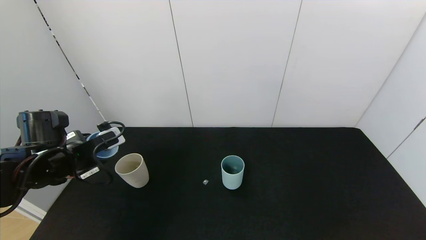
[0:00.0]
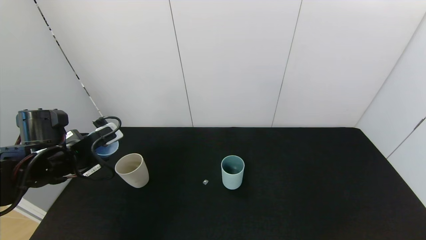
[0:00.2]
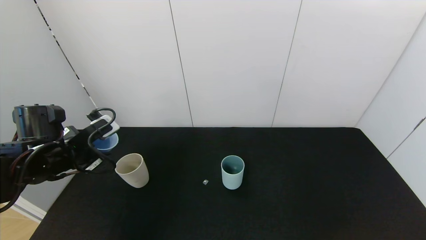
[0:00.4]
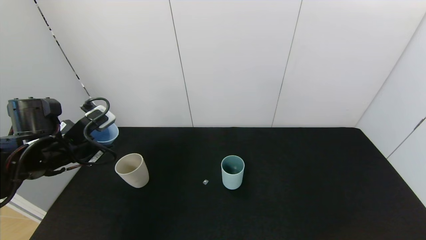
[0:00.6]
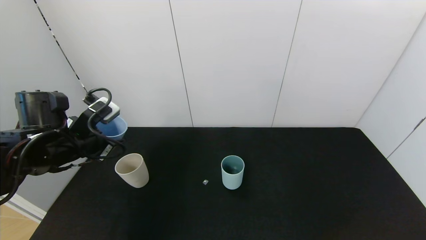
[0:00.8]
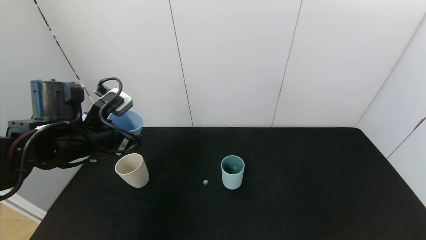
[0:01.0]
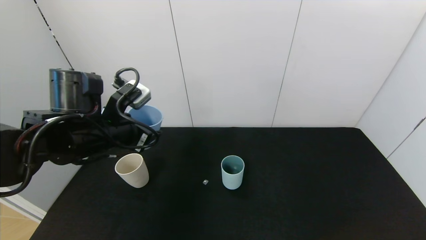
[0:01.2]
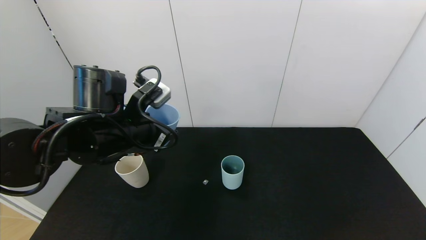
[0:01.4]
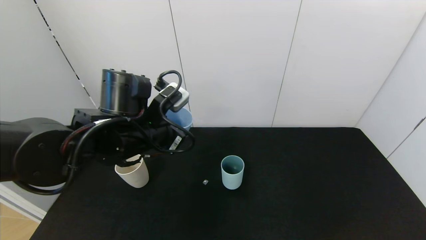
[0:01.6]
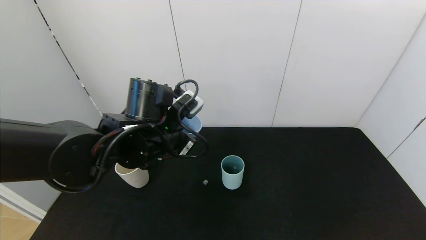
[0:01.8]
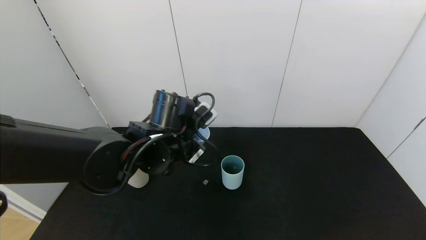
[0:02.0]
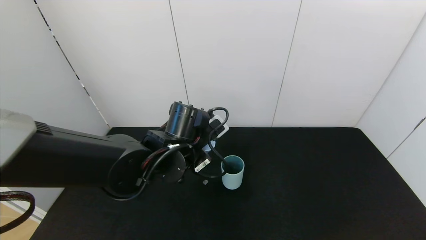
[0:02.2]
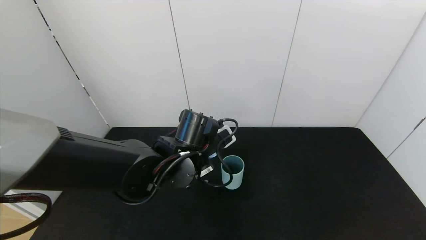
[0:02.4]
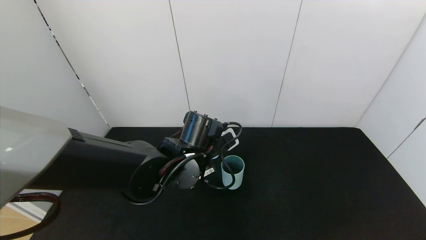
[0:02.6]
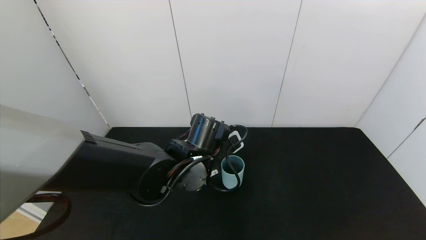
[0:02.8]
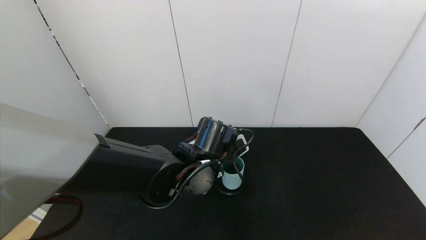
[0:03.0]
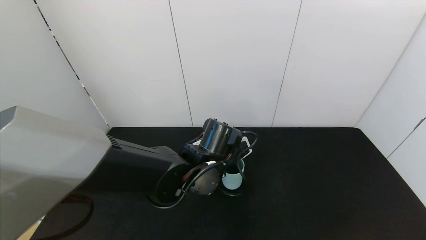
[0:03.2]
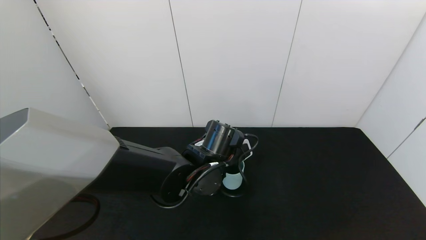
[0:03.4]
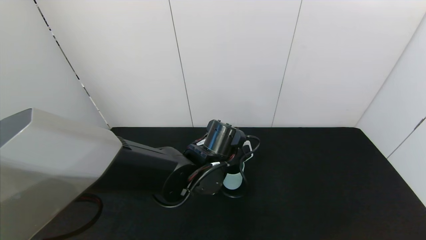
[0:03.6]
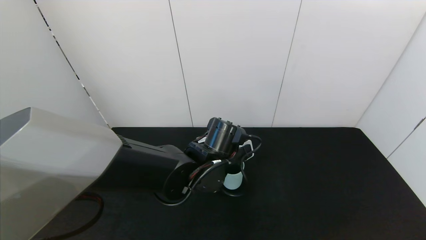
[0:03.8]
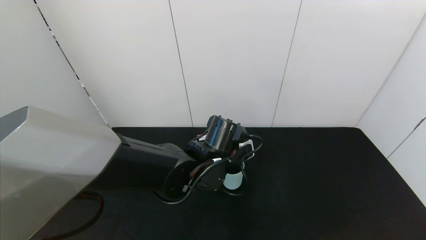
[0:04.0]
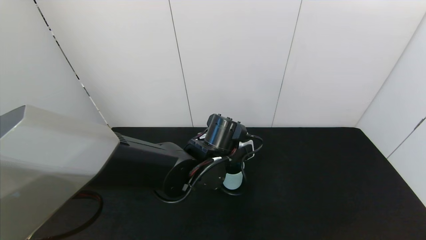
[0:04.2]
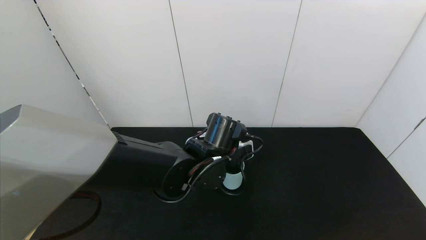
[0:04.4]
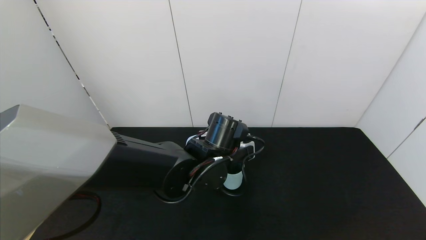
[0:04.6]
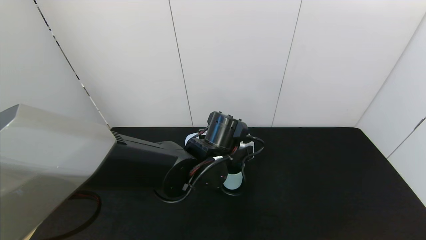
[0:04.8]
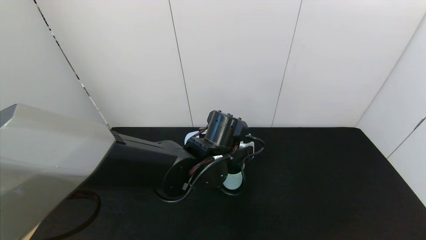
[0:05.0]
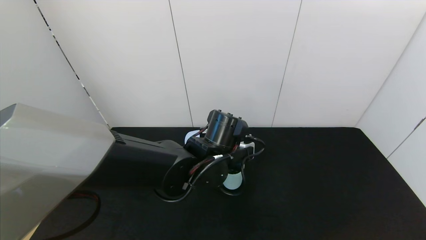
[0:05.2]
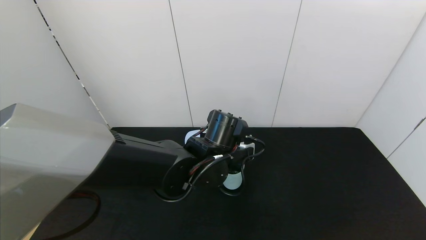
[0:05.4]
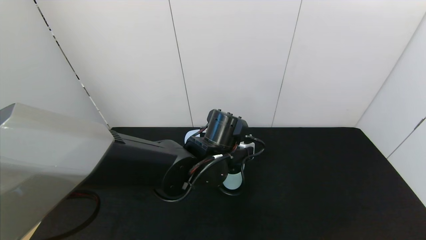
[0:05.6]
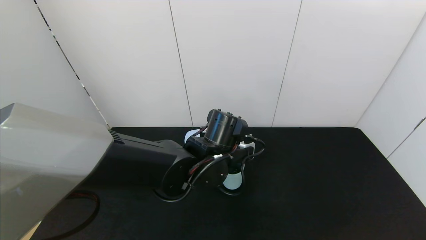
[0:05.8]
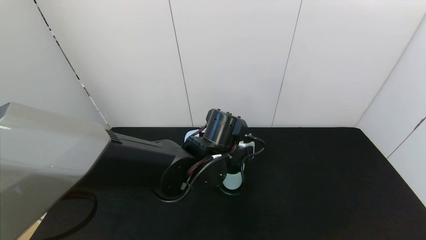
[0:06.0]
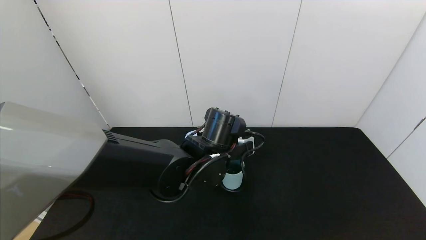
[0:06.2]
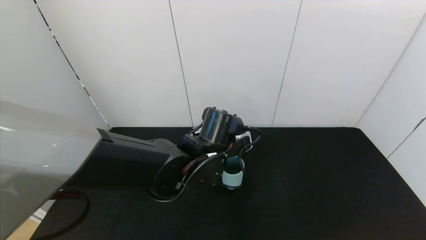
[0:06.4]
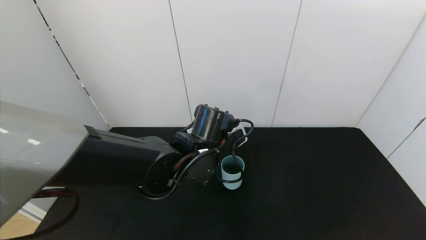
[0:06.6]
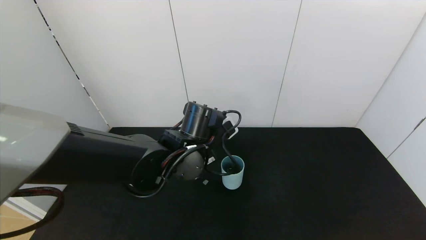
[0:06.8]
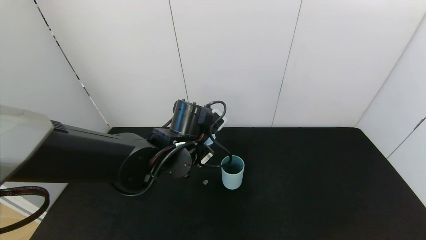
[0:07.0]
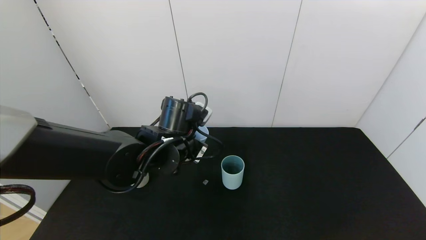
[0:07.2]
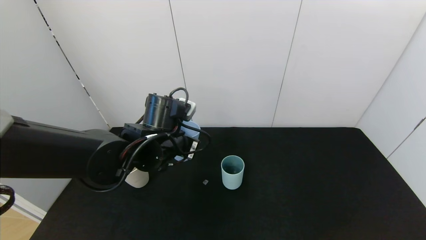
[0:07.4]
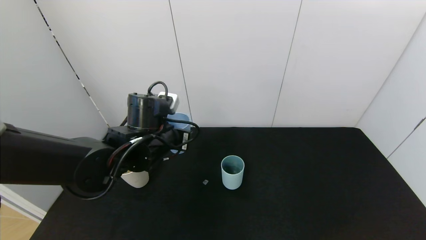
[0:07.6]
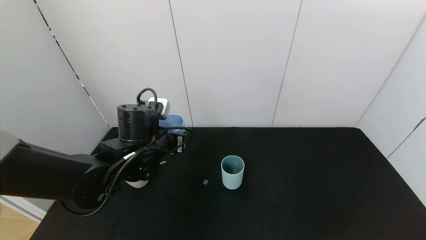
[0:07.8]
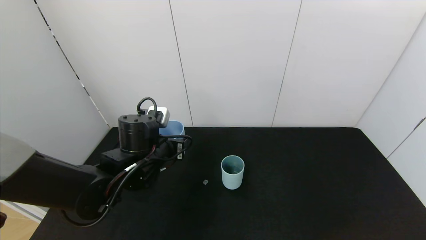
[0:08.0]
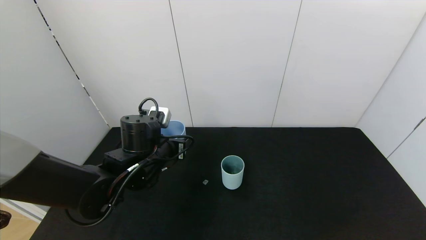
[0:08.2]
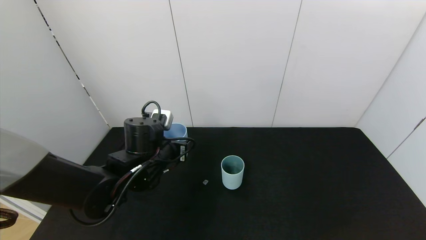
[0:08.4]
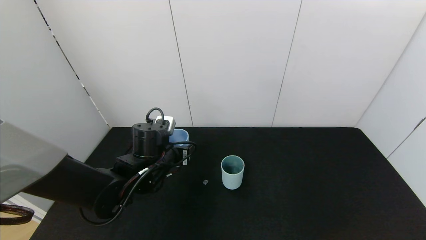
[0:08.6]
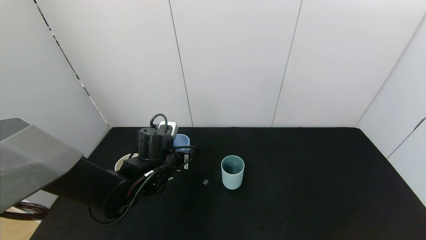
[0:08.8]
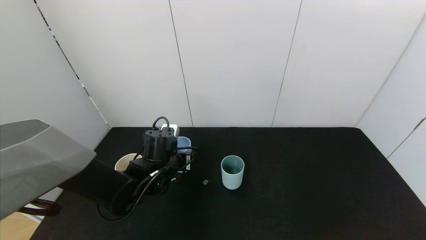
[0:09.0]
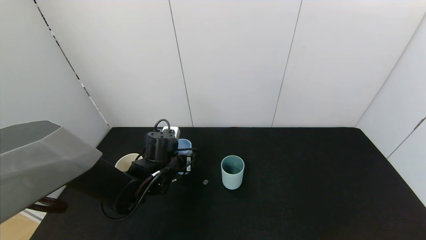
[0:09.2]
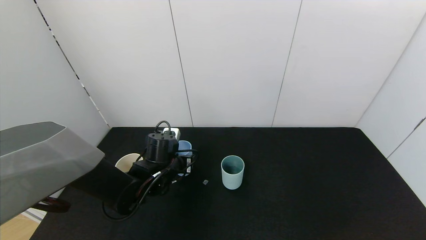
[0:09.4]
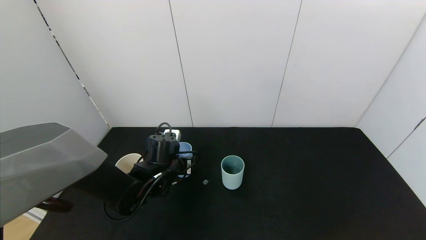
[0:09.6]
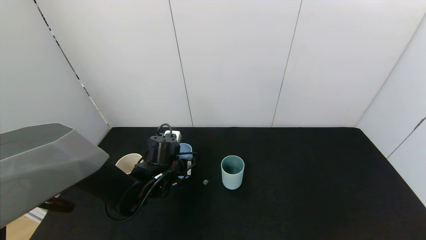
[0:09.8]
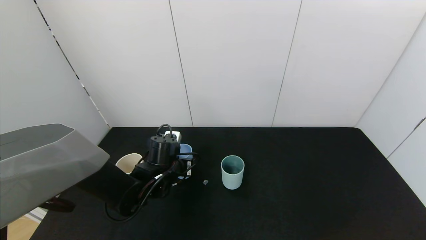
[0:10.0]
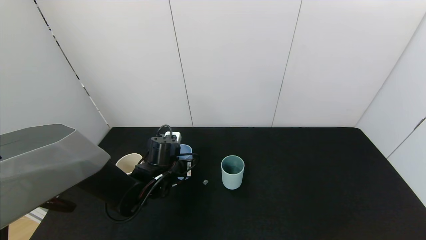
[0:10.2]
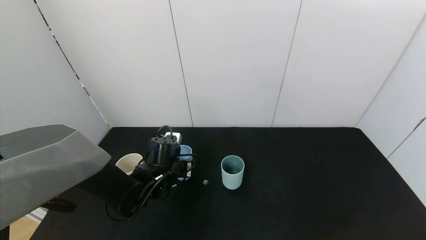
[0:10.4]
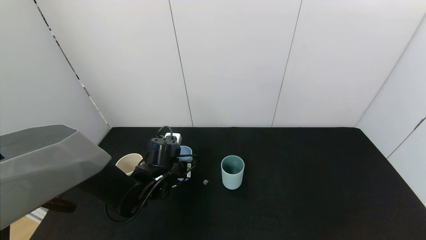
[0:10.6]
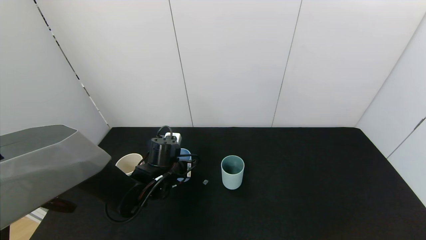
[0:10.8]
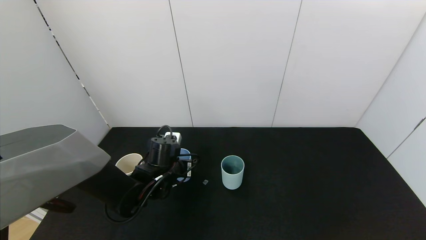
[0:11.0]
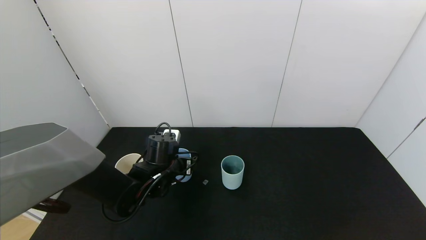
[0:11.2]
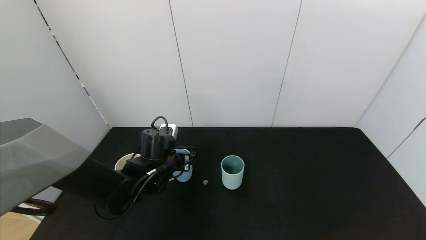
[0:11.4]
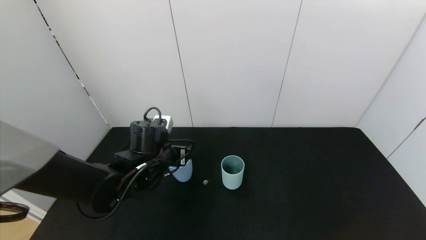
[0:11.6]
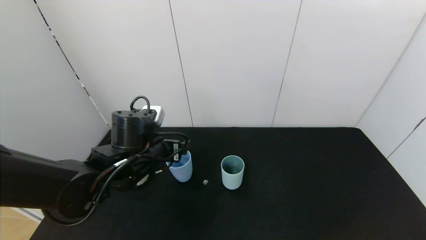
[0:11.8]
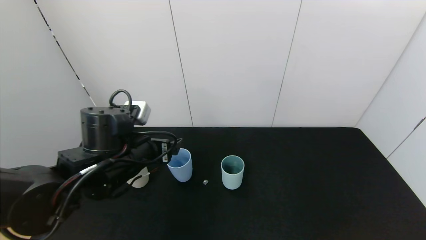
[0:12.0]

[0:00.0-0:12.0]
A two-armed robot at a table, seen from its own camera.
Task of the whole recording: use the gripper to pour the water into the other two cups on black table.
Step, 0:00.4 to 0:06.8: Pour water from blue cup to green cup with the left gripper.
0:00.0 to 0:01.6: The left gripper moves to the right, about 15 cm.
0:01.6 to 0:03.0: The left gripper travels to the right and downward by about 15 cm.
0:03.0 to 0:04.4: The grippers stay close to where they were, moving slightly.
0:04.4 to 0:06.0: The grippers move only a little.
0:06.0 to 0:07.6: The left gripper heads to the left, covering some 10 cm.
0:07.6 to 0:09.0: The left gripper goes about 10 cm downward.
0:09.0 to 0:10.4: The grippers make only small movements.
0:10.4 to 0:12.0: The left gripper heads upward and backward, covering some 15 cm, and opens up.

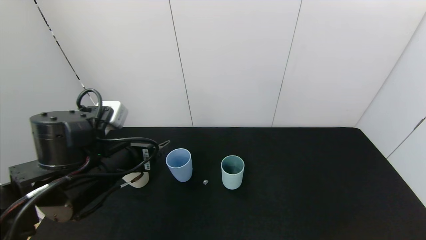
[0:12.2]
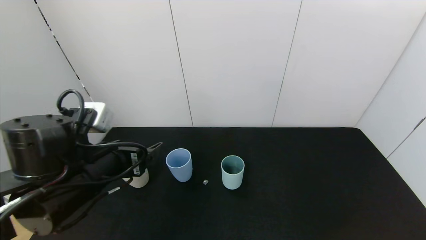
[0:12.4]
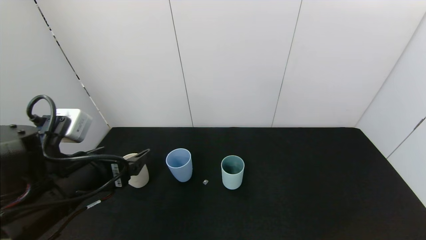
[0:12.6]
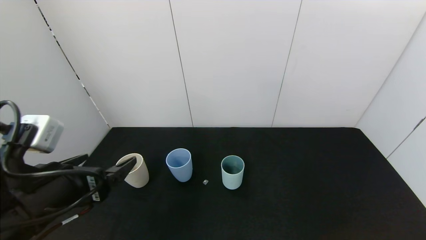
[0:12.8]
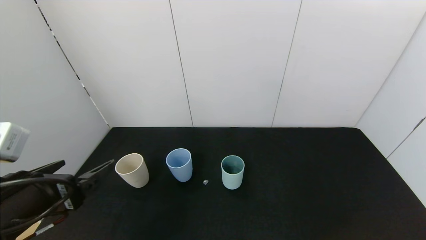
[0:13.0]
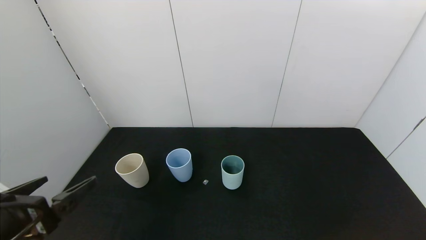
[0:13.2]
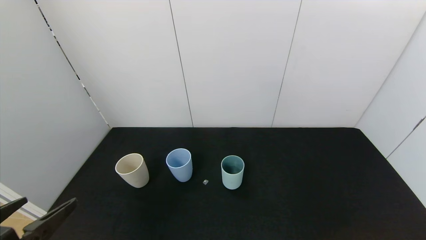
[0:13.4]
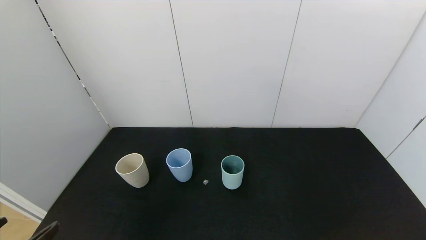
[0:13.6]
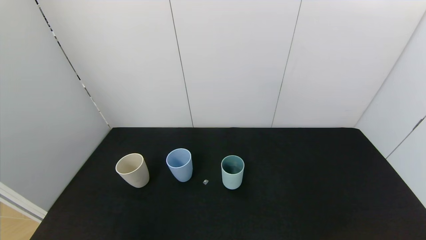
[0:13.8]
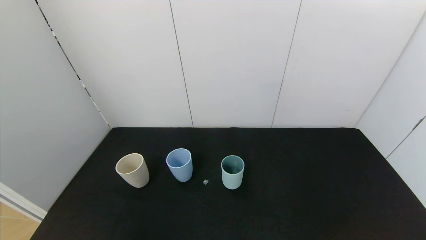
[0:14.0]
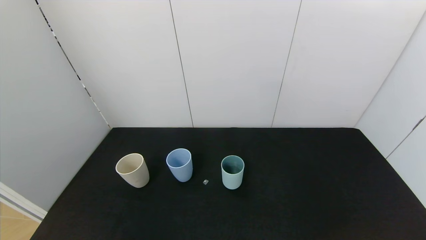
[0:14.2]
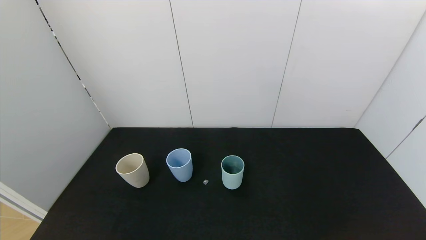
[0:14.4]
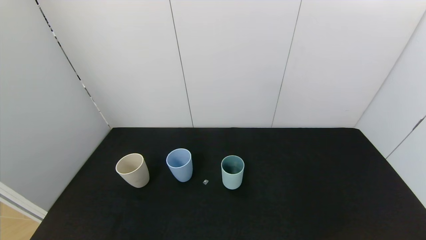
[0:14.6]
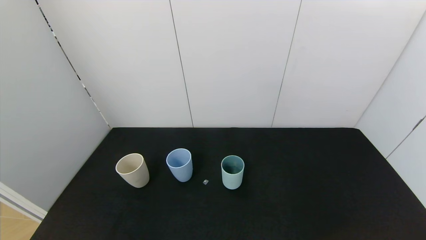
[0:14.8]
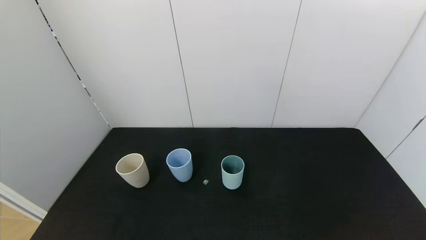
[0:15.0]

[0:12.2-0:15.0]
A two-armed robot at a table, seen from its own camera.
Task of the whole recording: use the gripper to pour the water into the other two cups on black table.
0:12.2 to 0:13.6: The left gripper shifts about 20 cm backward and to the left.
